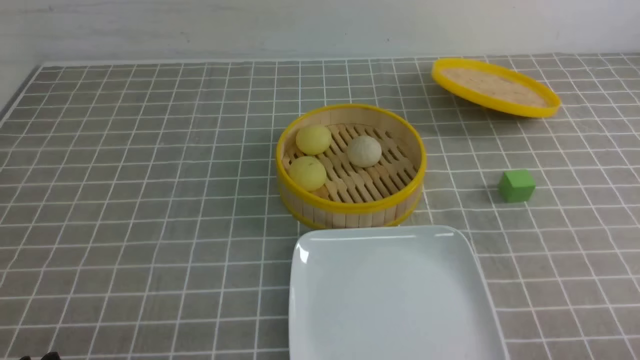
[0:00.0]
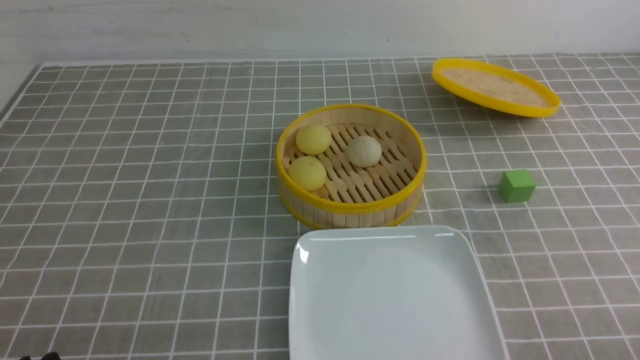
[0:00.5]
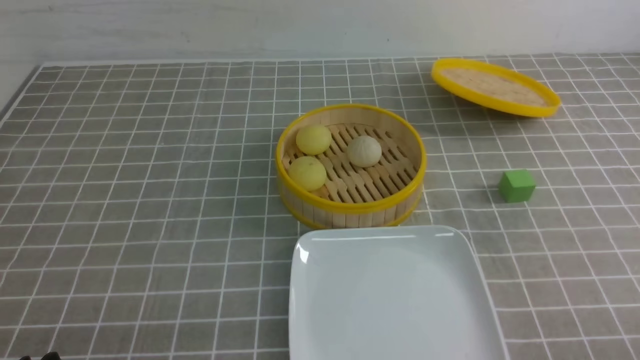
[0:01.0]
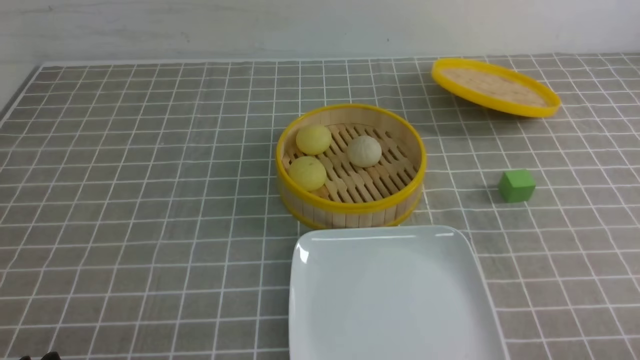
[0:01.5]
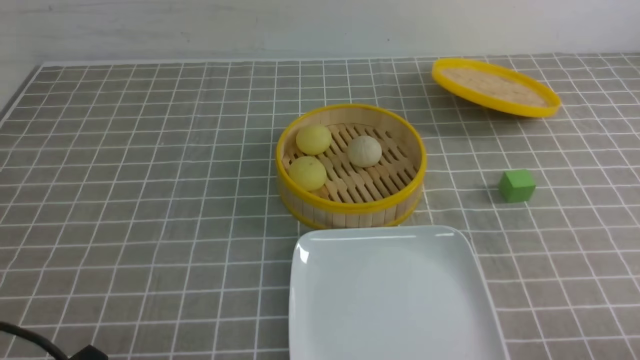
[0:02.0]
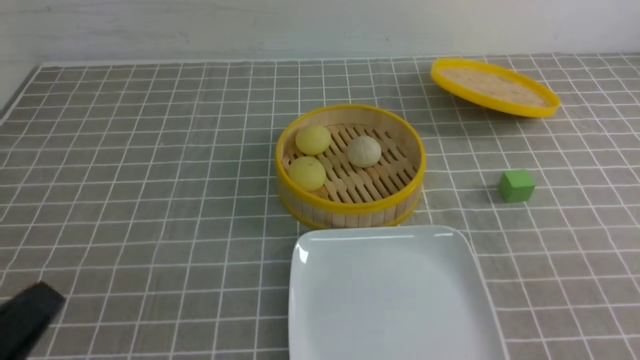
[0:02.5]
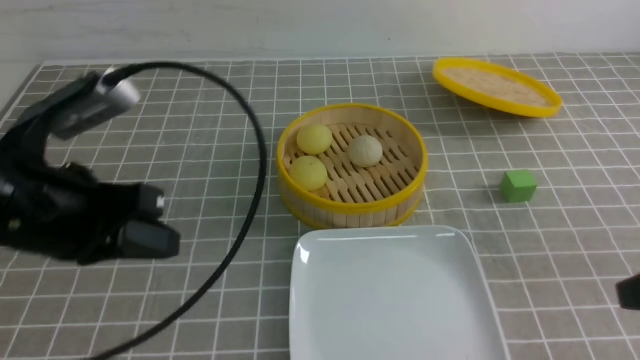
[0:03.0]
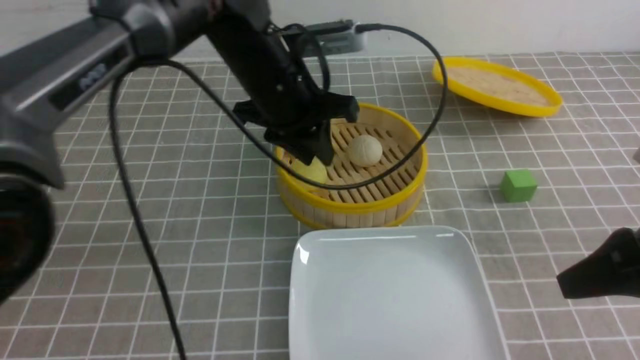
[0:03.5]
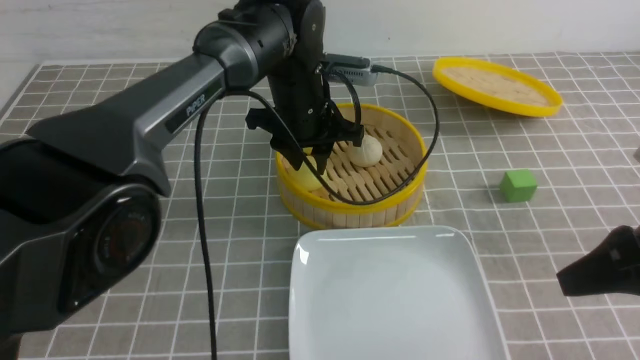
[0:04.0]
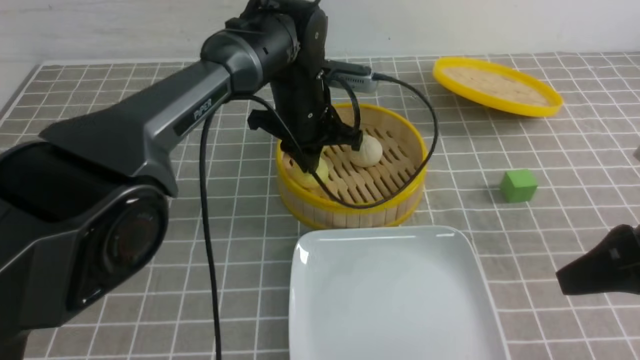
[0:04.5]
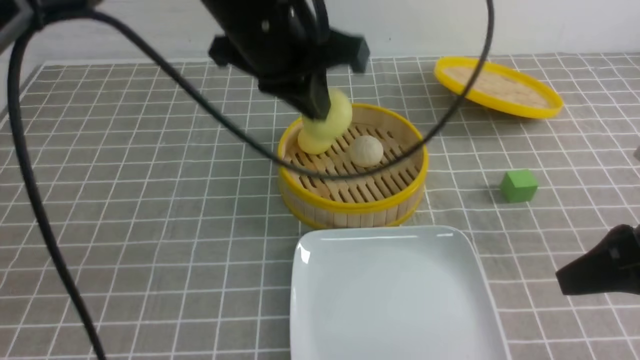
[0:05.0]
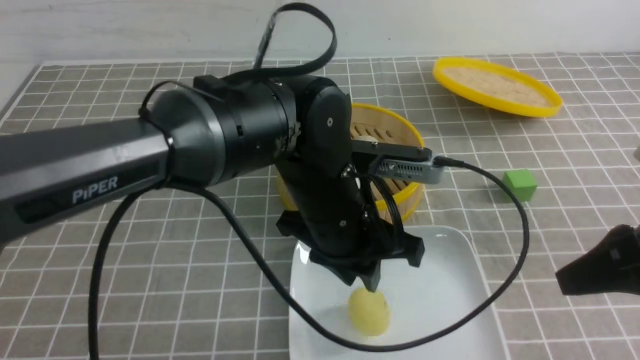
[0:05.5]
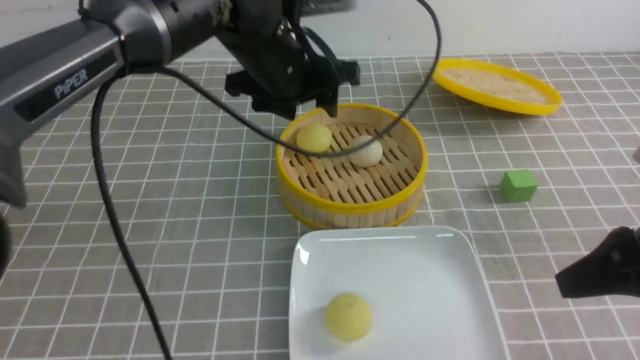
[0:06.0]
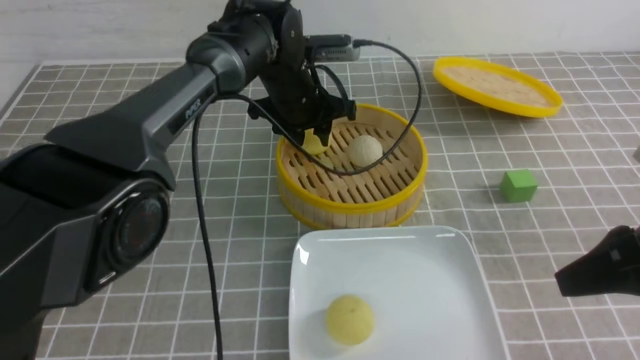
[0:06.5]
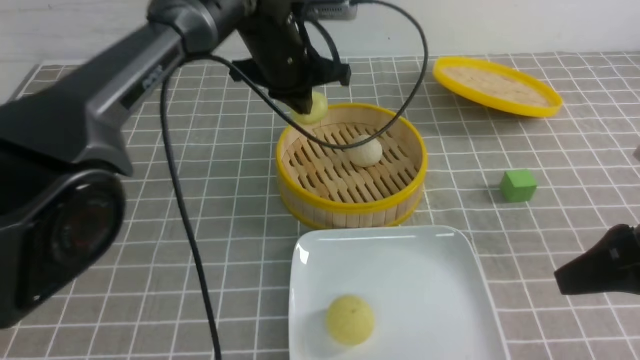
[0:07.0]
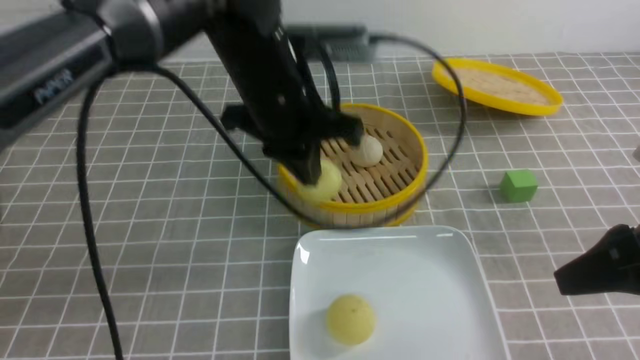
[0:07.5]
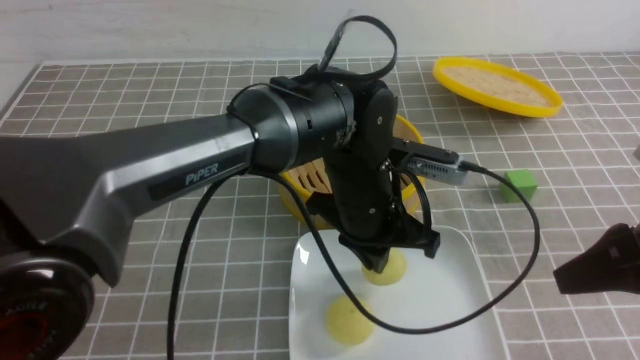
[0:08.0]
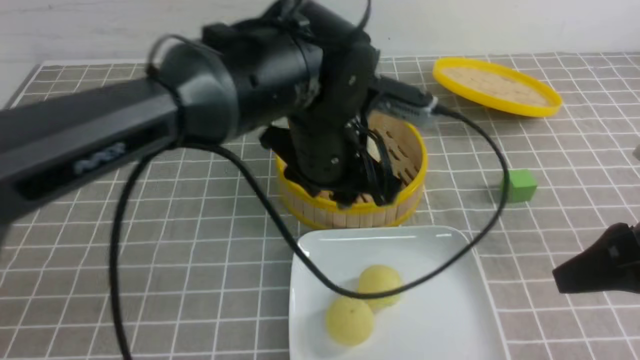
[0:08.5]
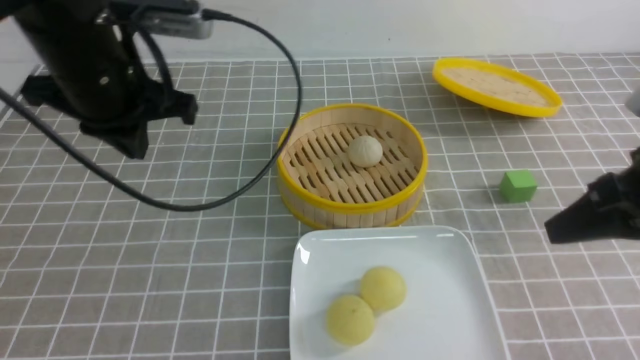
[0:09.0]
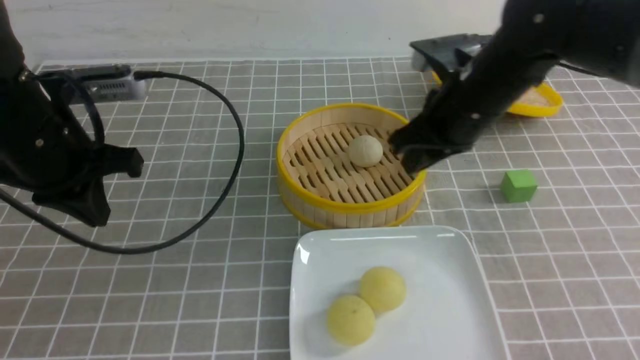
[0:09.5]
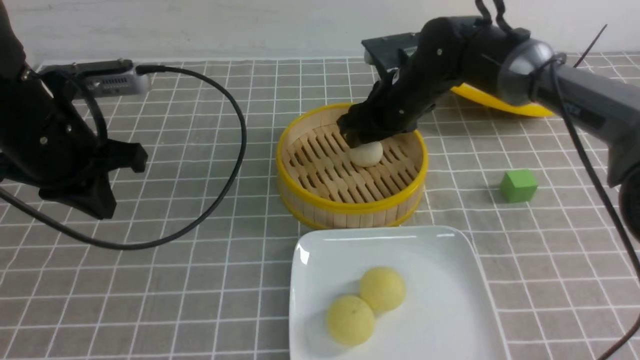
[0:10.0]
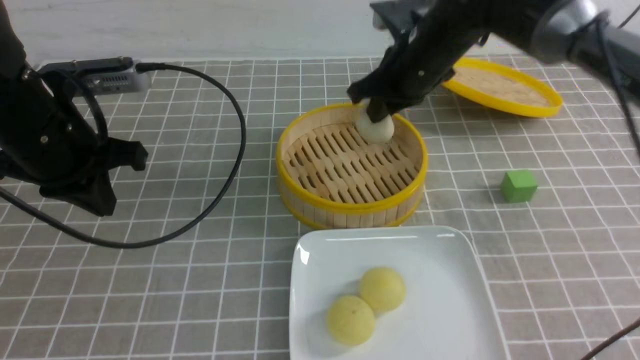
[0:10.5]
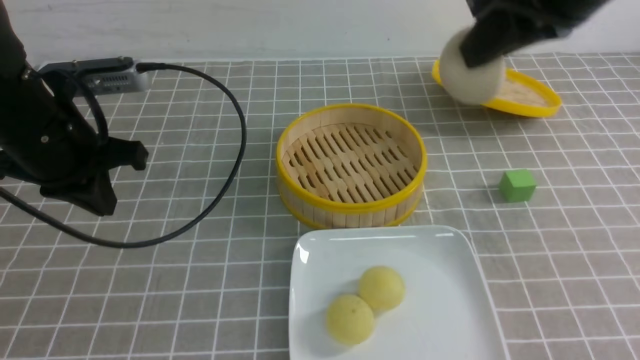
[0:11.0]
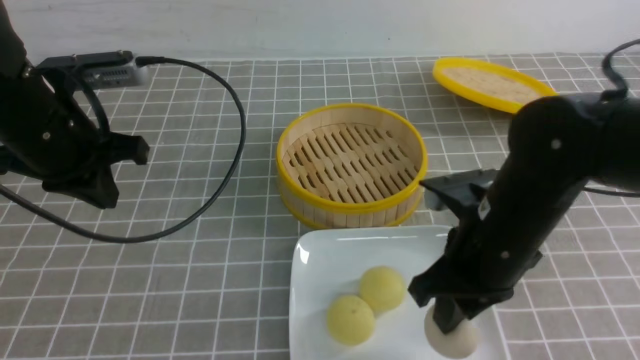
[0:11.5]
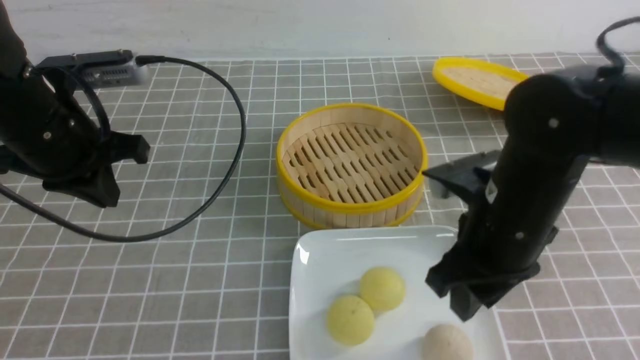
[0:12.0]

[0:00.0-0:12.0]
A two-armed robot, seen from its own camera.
Step, 0.0 to 4.0 s: use the left arm to grab the steamed stuffed bun that is closest to it.
Step, 5.0 to 5.5 s: use the left arm to put the steamed stuffed bun into the plate.
Step, 6.0 to 6.5 s: use the left arm to grab the steamed stuffed bun that is closest to it.
Step, 7.0 to 8.0 s: use the left arm to put the steamed stuffed bun into the plate.
Step, 8.5 to 10.0 s: use the right arm to grab the steamed stuffed bun that is closest to it.
Step, 10.5 to 12.0 s: use the right arm to put the steamed stuffed bun into the plate.
2.0 to 4.0 s: The left gripper is displaced forward and to the right by some 40 cm, and closes, then reopens, while the right gripper shifts about 20 cm forward and upward, and closes.
4.0 to 6.0 s: The left gripper heads upward, covering roughly 5 cm, travels backward and back again, about 15 cm each way, and closes, then opens again.
6.0 to 8.0 s: The left gripper heads backward, downward and to the right, covering approximately 15 cm, and closes up.
8.0 to 10.0 s: The right gripper shifts about 30 cm forward and to the left, and opens; the left gripper goes approximately 25 cm to the left.
10.0 to 12.0 s: The right gripper travels backward by roughly 20 cm, and closes, then reopens.

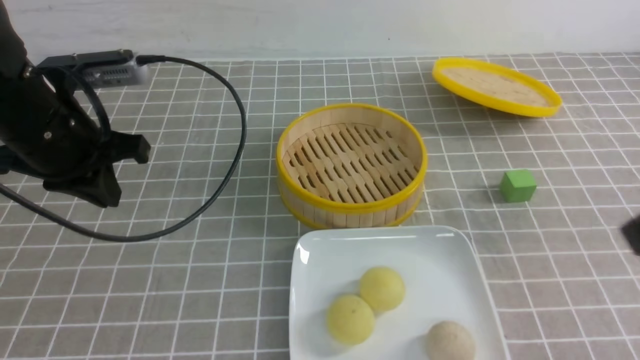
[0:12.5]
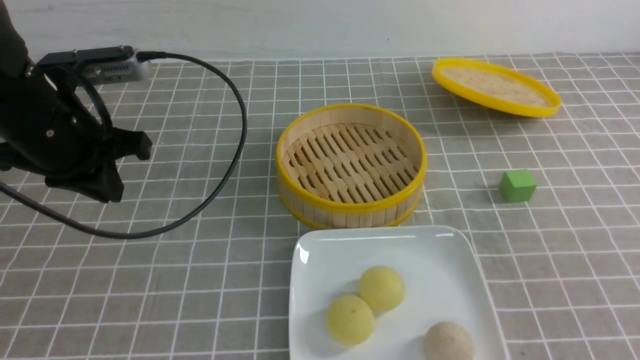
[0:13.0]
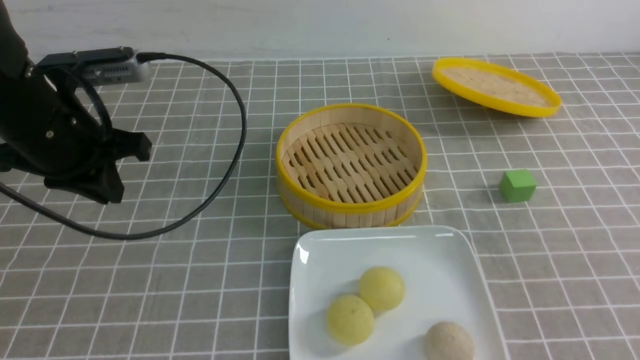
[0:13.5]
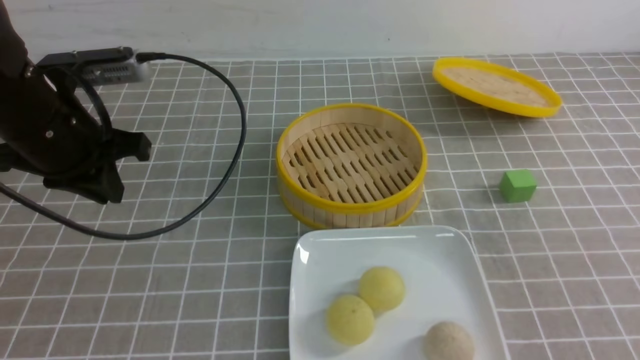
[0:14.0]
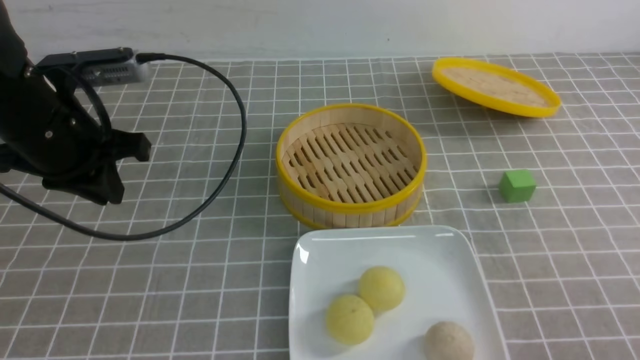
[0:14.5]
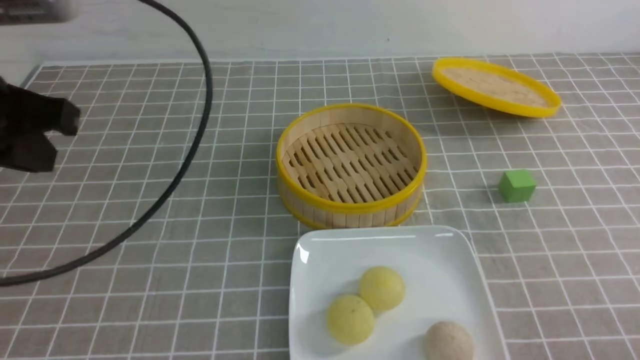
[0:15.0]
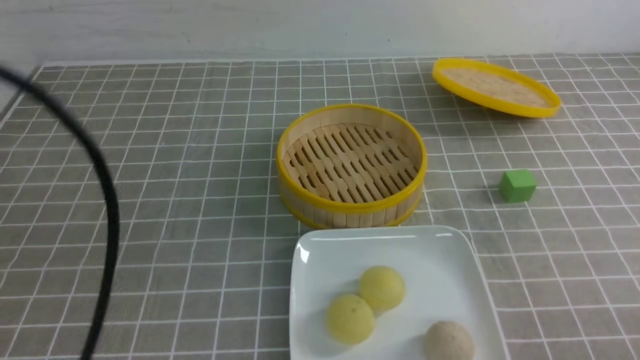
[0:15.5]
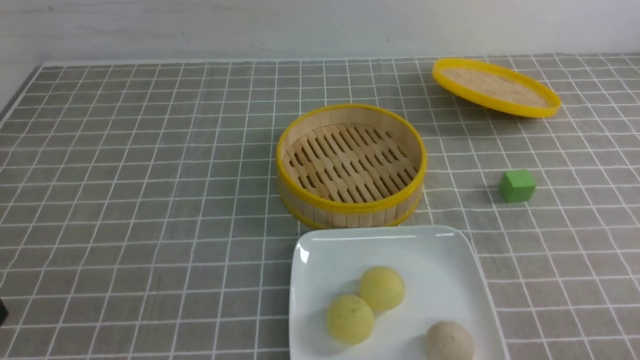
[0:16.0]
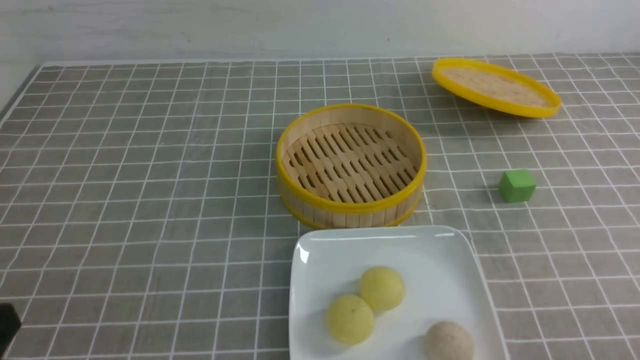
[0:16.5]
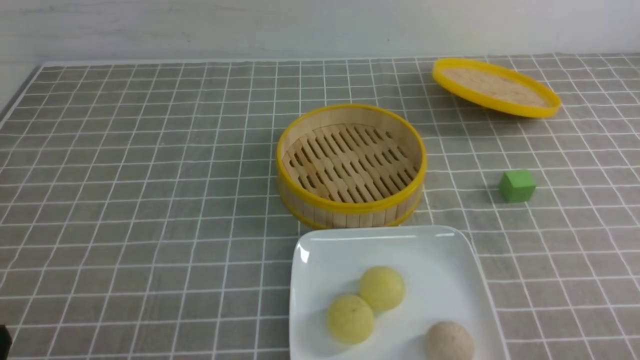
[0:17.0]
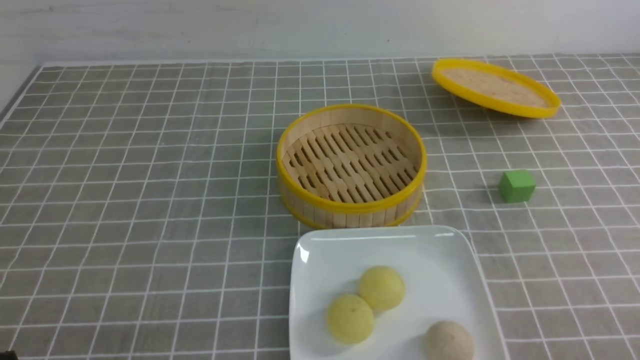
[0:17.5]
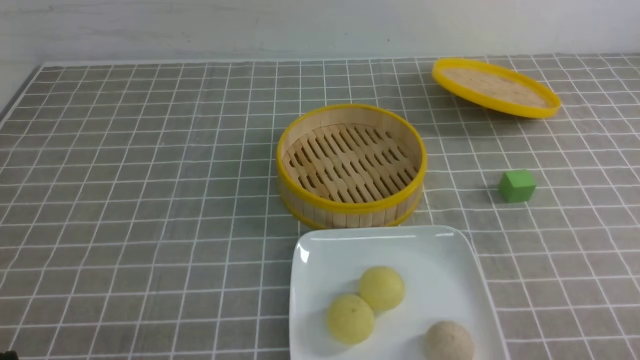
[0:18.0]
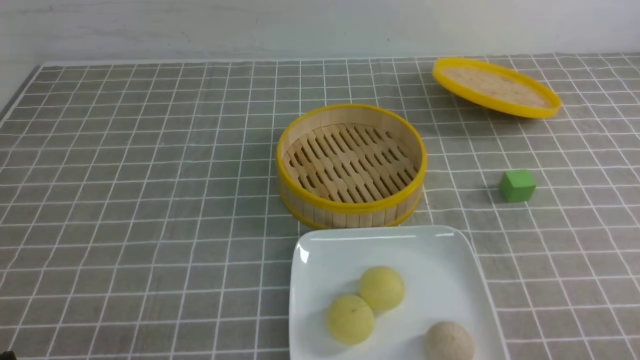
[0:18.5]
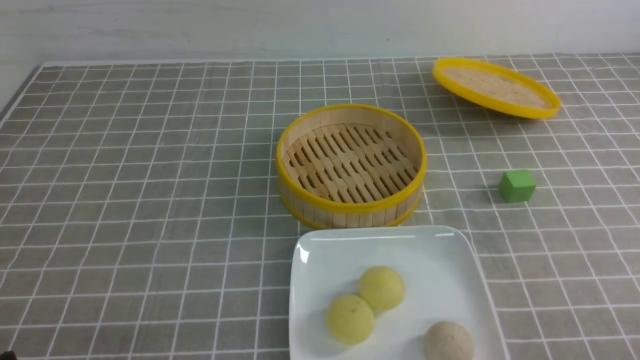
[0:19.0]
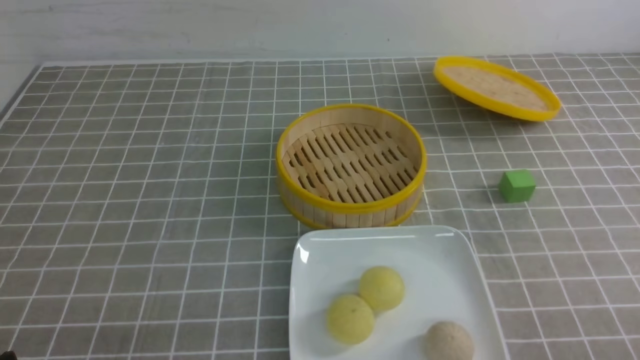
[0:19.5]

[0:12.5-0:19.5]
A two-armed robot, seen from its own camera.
12.5 to 14.5 s: The right gripper heads downward, covering about 20 cm.
14.5 to 16.0 s: The left gripper travels backward by roughly 25 cm.
17.5 to 19.5 s: Both grippers stay put.

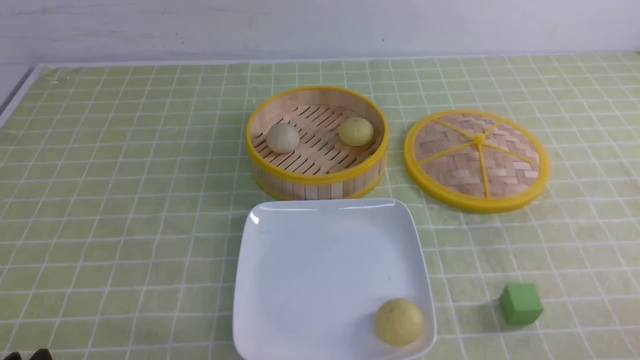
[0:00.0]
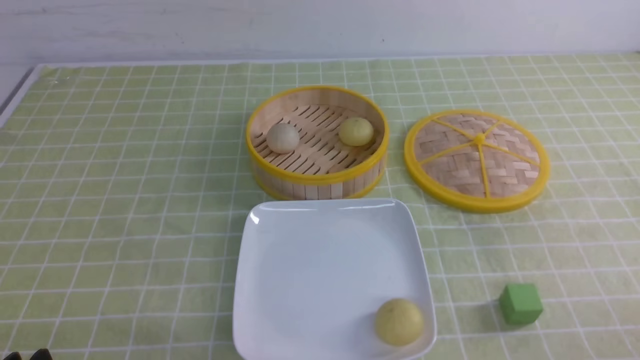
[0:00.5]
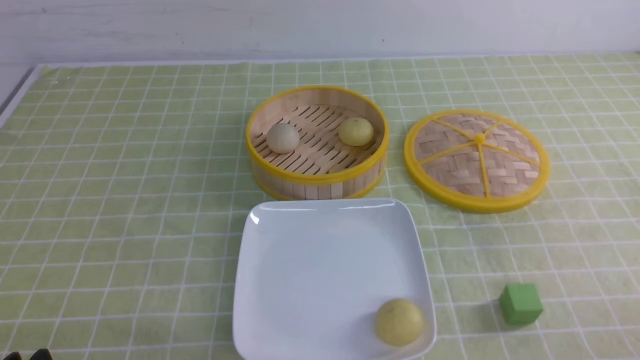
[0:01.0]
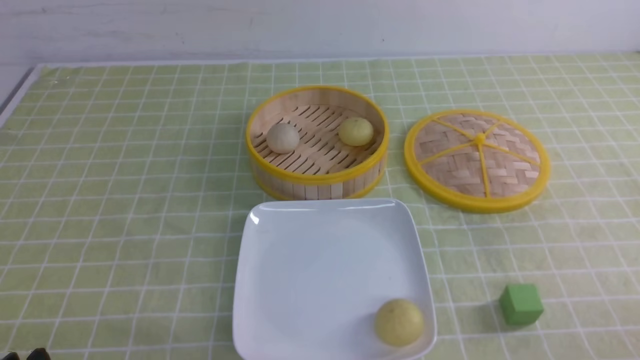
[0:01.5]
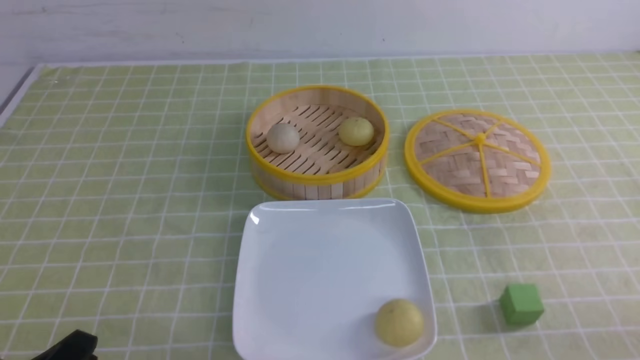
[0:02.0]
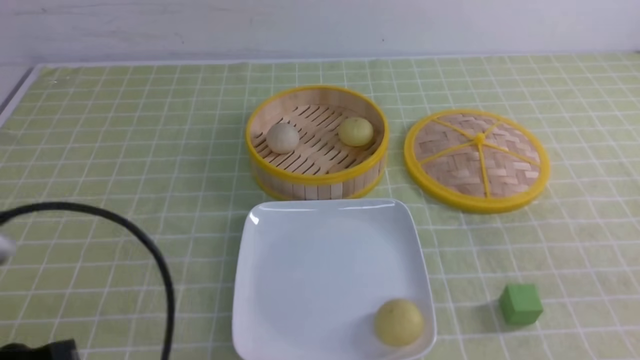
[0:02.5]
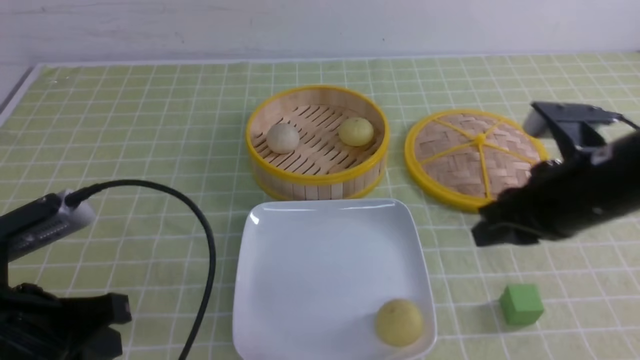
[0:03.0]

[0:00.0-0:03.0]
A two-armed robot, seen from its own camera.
1.5 to 3.0 s: The left gripper heads forward and upward, covering approximately 10 cm, and closes. Meanwhile the right gripper heads forward, to the left and upward, covering about 25 cm, and closes, then opens again.
